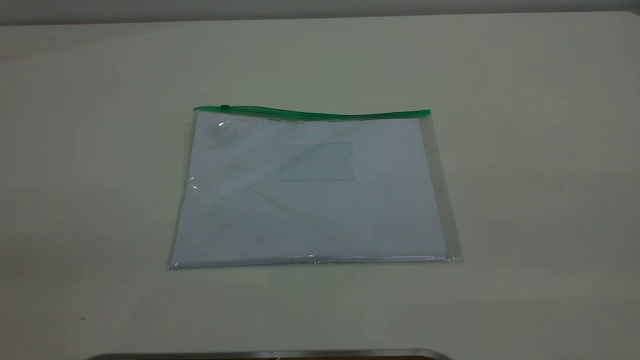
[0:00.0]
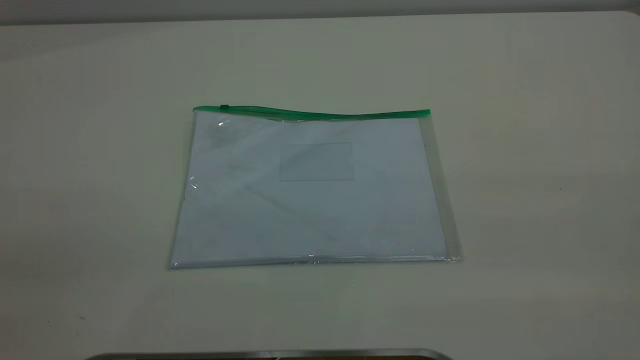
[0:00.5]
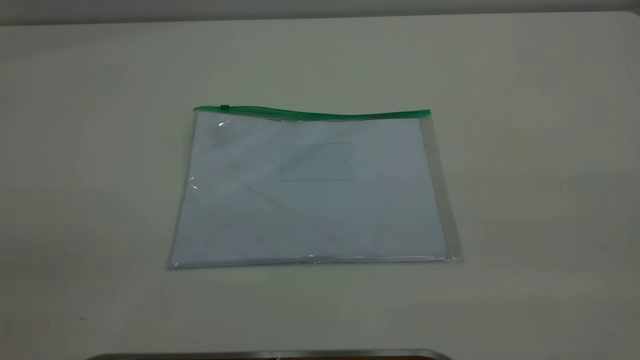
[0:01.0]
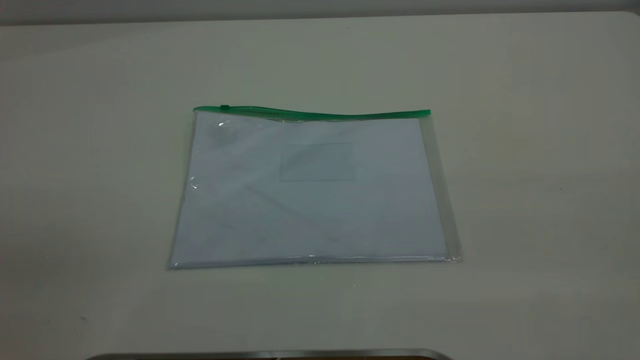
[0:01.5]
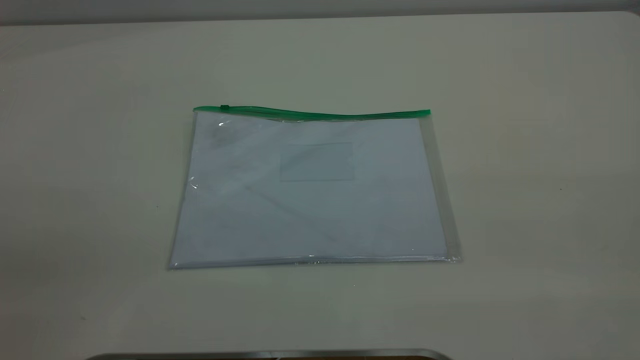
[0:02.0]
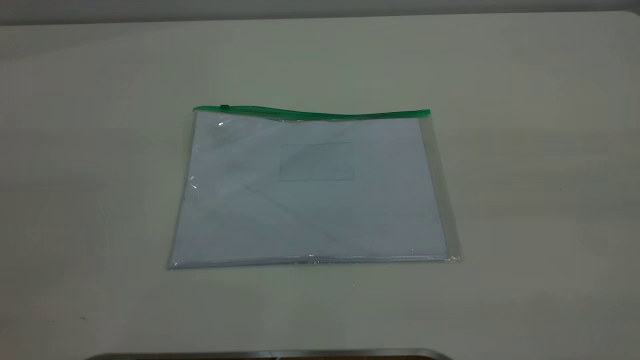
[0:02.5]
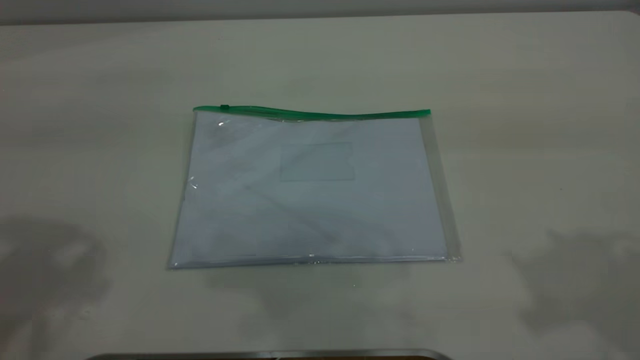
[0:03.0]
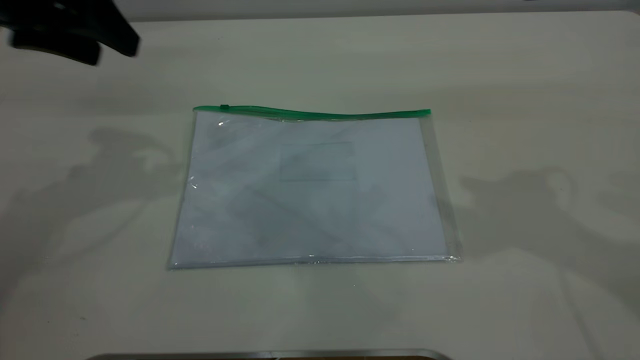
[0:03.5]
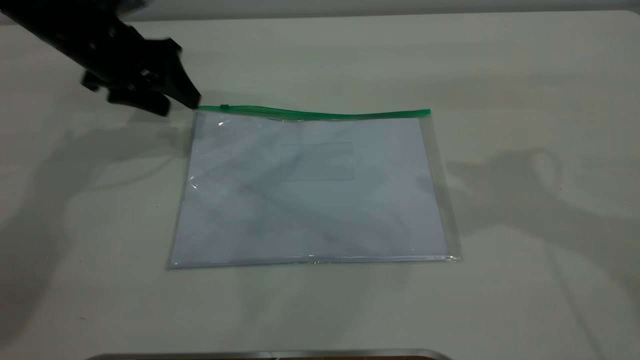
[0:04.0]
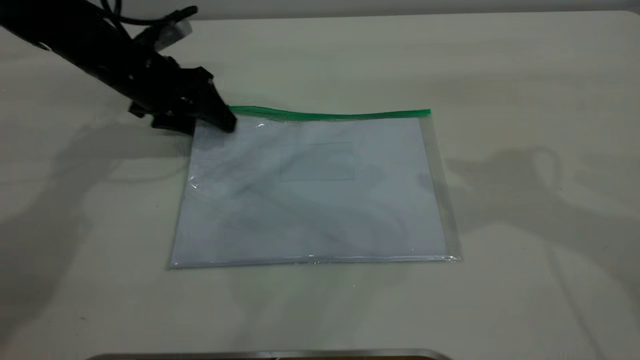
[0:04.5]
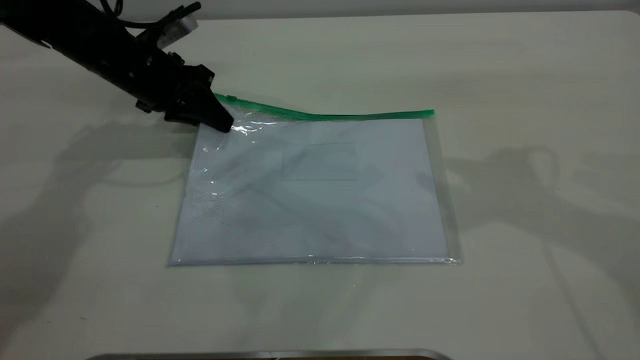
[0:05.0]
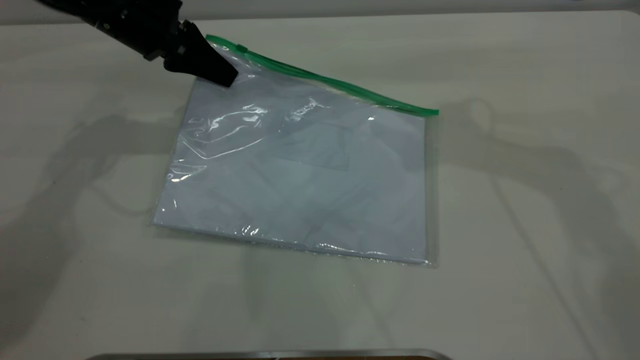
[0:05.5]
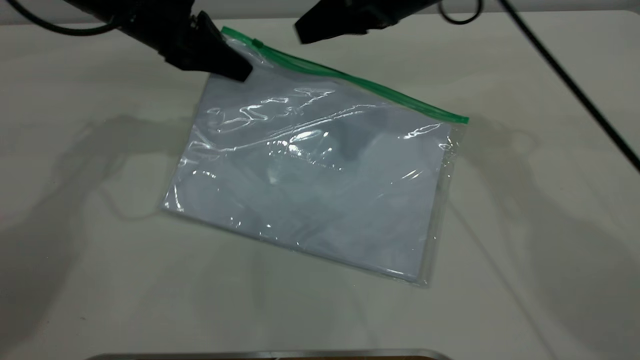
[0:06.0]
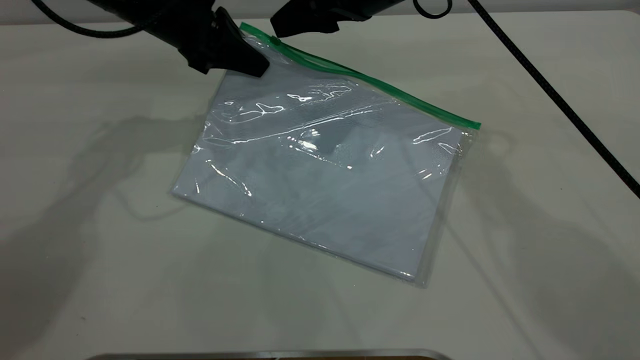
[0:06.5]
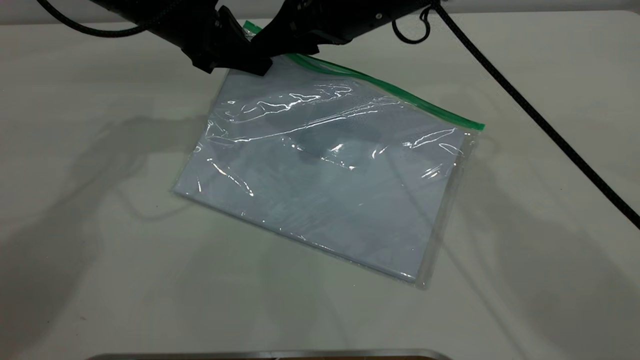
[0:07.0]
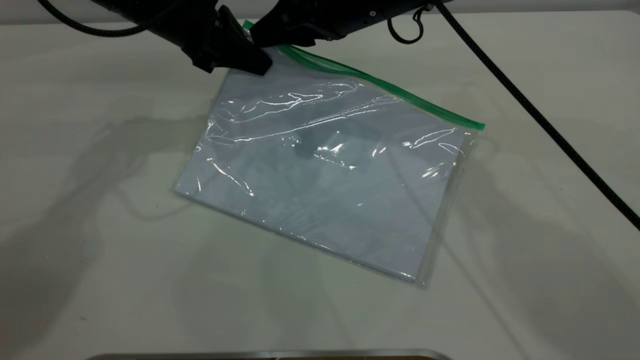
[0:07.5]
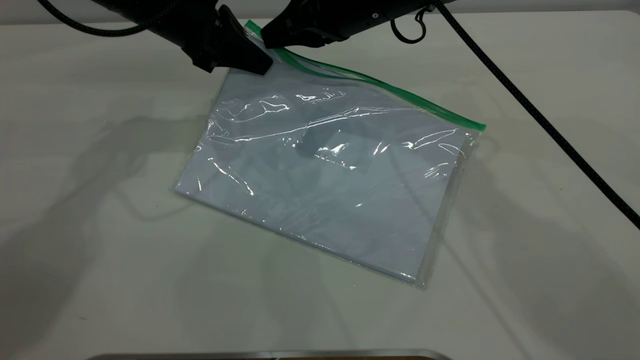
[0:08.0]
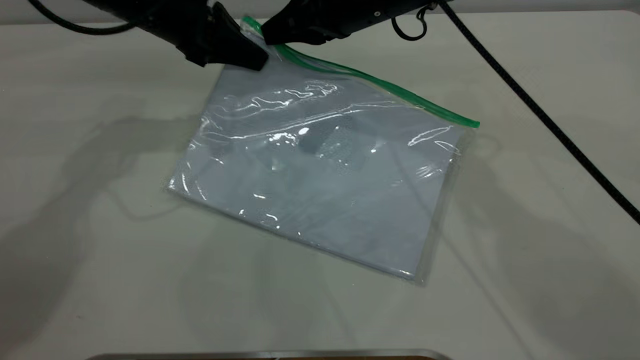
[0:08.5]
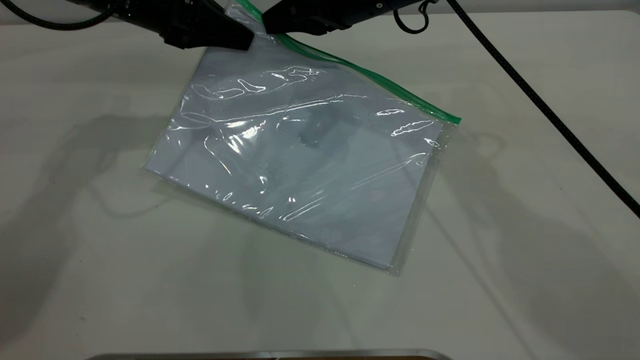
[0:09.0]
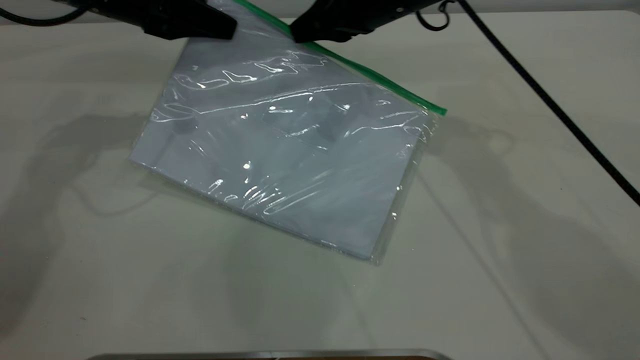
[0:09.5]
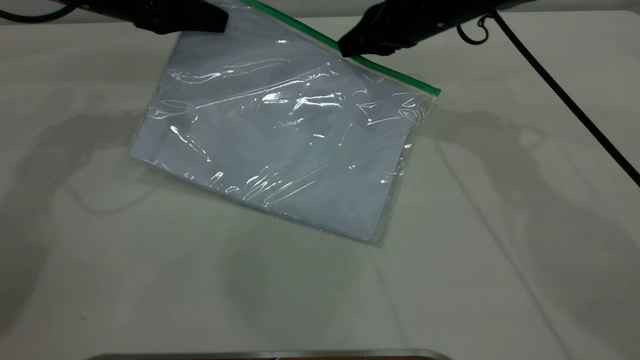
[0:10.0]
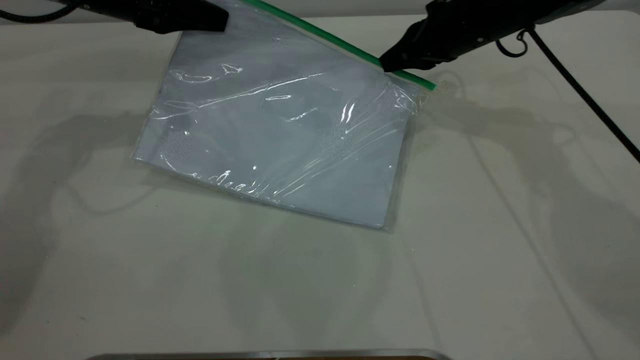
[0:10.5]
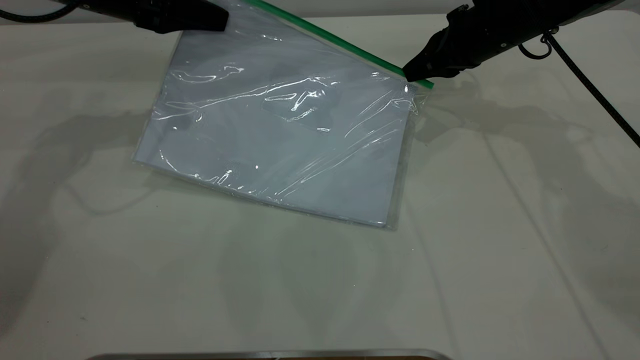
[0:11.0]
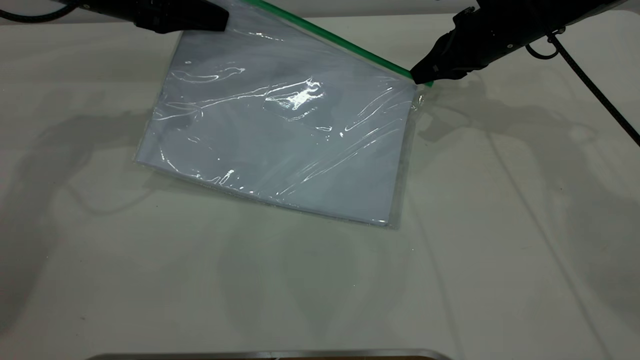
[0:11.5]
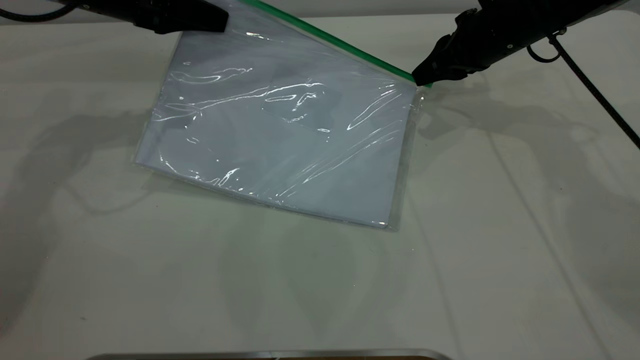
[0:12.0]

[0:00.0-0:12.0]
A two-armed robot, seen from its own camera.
Step, 0:00.0 to 0:05.0: Pick up the transparent plastic bag with the left gripper.
0:00.0 to 0:02.0: Neither gripper changes place.
0:02.0 to 0:04.0: The left gripper goes roughly 50 cm forward and downward.
0:04.0 to 0:06.0: The right gripper heads forward, to the left and downward, covering roughly 20 cm. The left gripper goes about 5 cm to the right, and closes.
0:06.0 to 0:08.0: The right gripper closes up.
0:08.0 to 0:10.0: The left gripper moves to the left, roughly 5 cm; the right gripper travels to the right by some 10 cm.
0:10.0 to 0:12.0: The right gripper goes approximately 10 cm to the right.

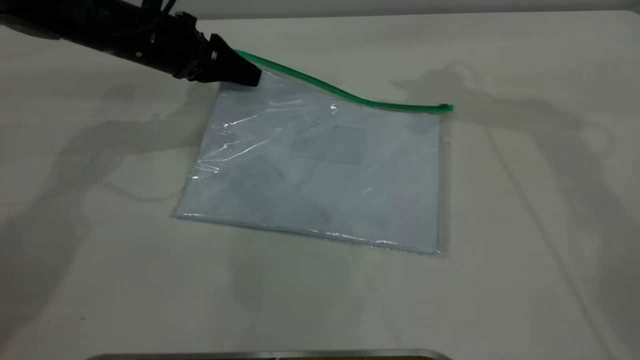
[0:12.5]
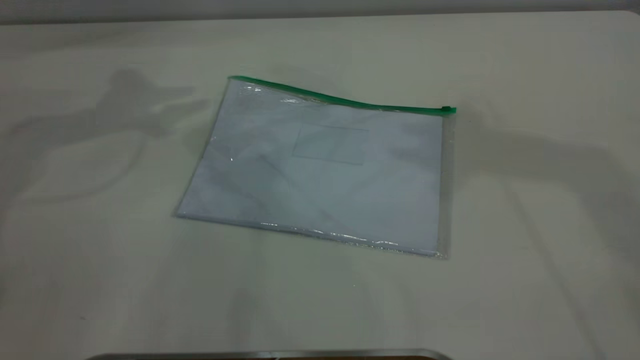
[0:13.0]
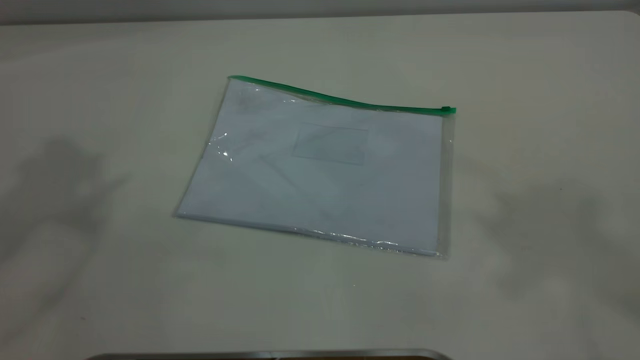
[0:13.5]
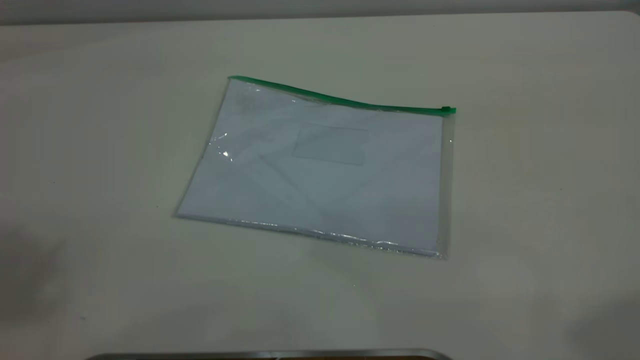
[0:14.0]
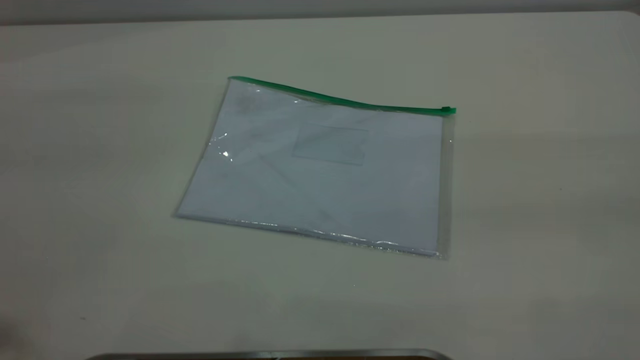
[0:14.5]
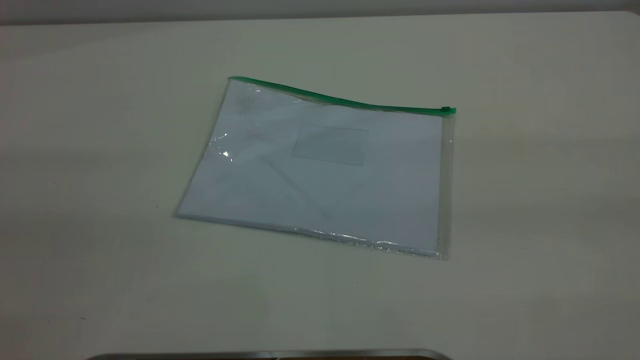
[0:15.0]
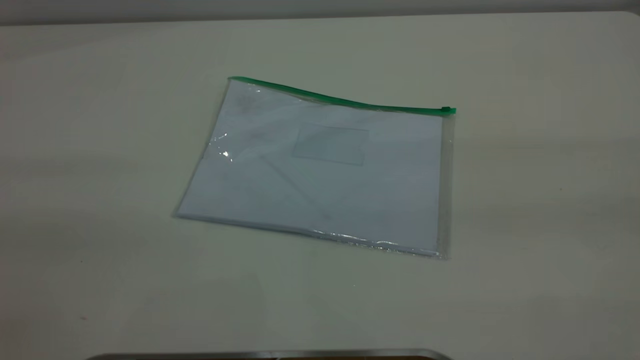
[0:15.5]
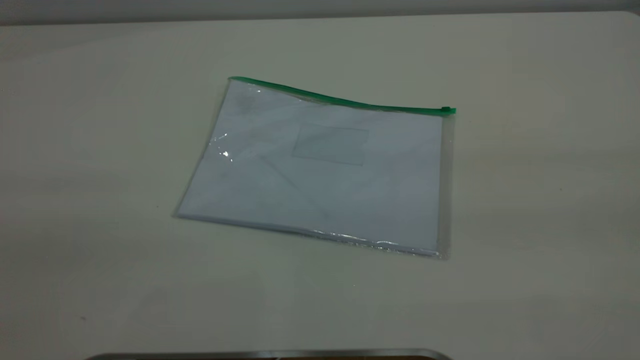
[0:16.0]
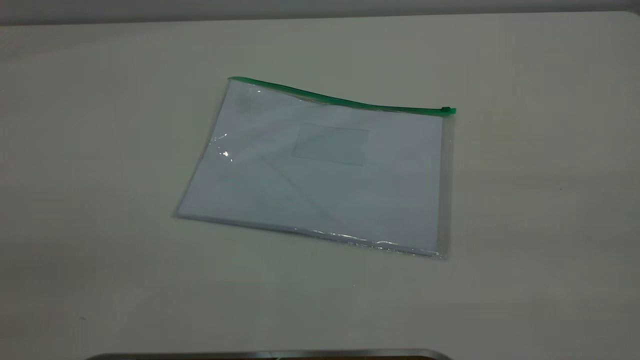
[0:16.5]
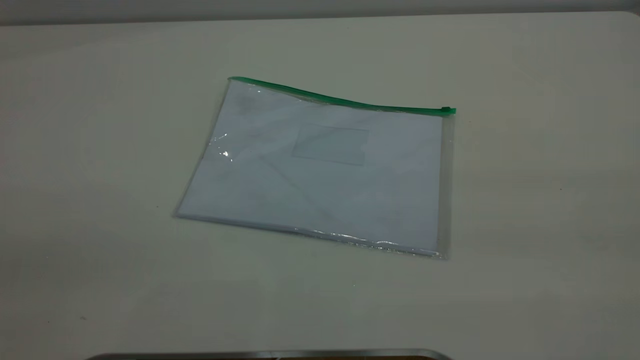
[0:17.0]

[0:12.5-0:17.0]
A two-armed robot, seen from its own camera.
0:12.5 to 0:14.5: The right gripper is displaced backward by about 40 cm. The left gripper goes roughly 50 cm backward and upward.
